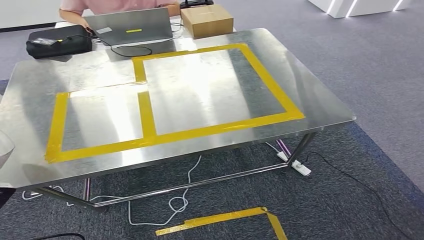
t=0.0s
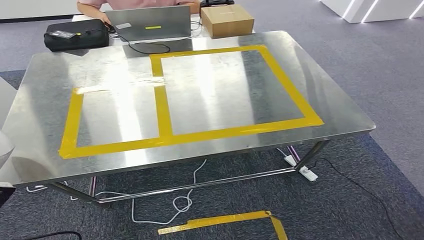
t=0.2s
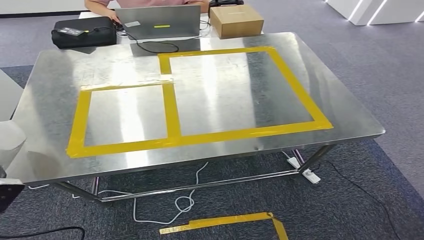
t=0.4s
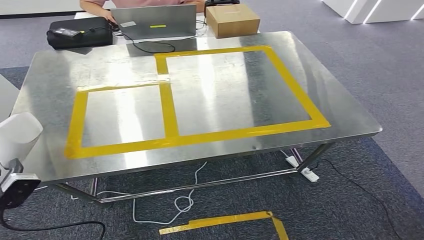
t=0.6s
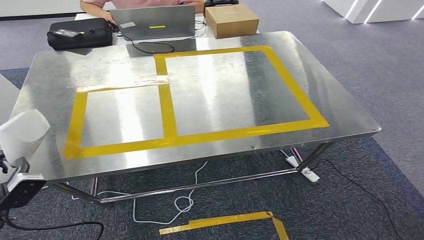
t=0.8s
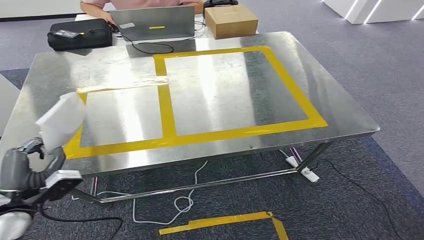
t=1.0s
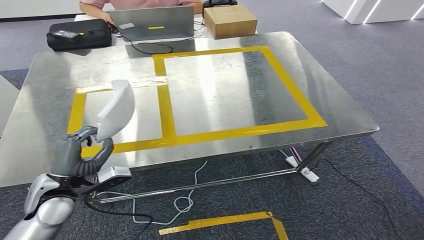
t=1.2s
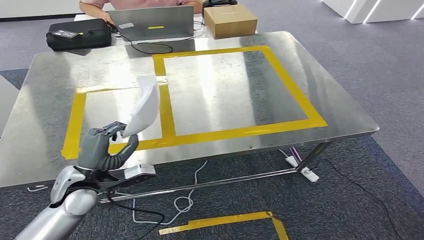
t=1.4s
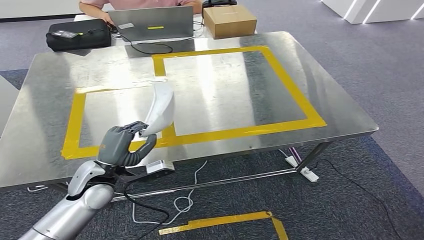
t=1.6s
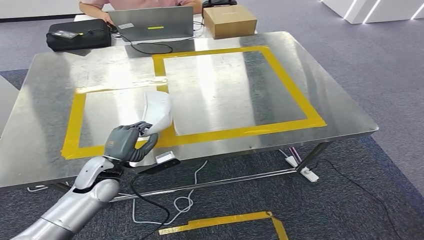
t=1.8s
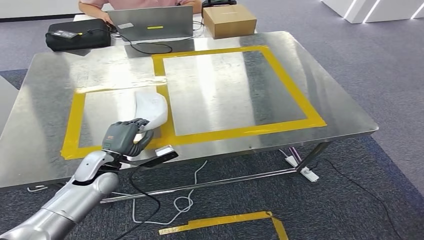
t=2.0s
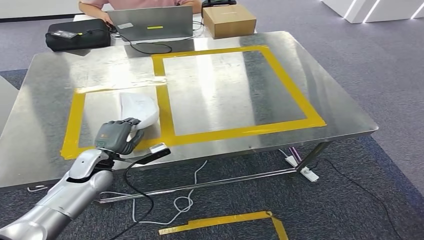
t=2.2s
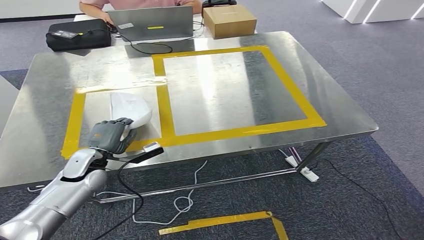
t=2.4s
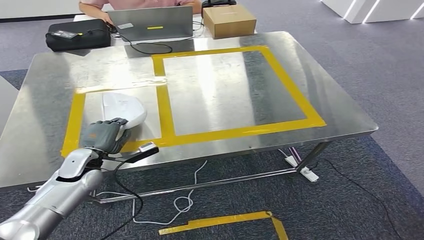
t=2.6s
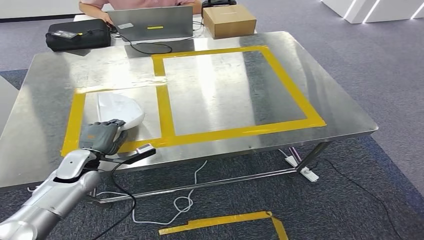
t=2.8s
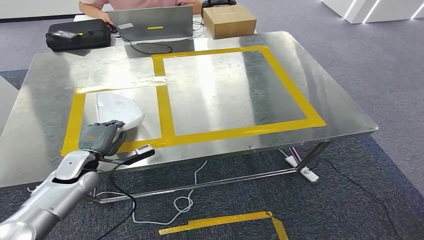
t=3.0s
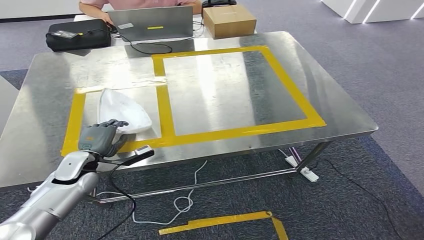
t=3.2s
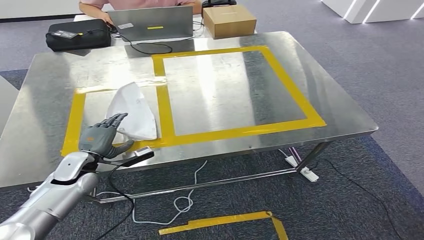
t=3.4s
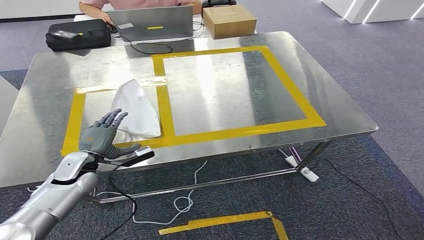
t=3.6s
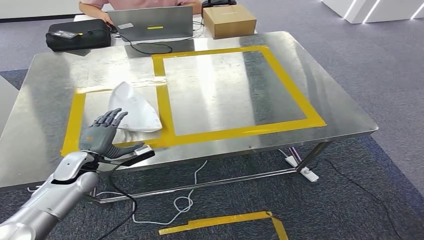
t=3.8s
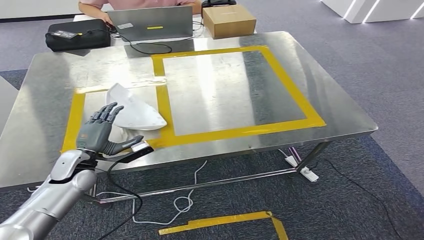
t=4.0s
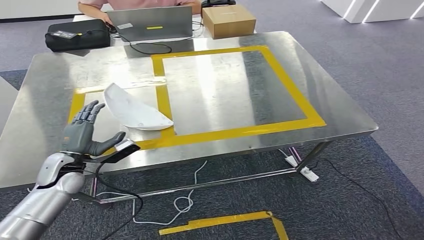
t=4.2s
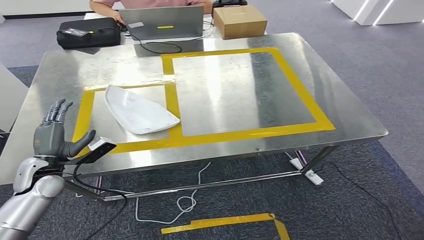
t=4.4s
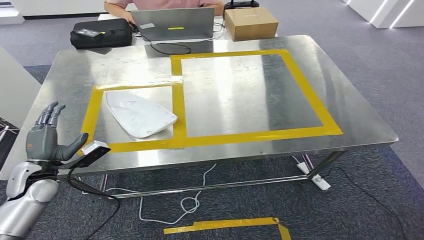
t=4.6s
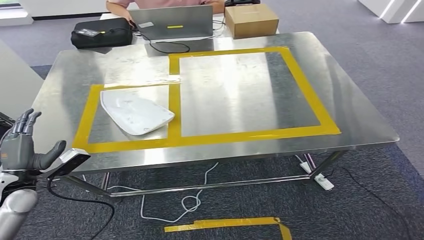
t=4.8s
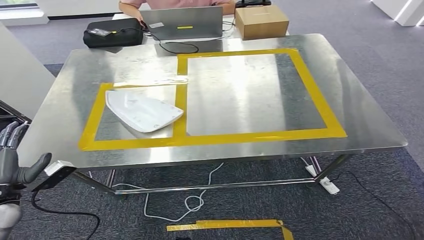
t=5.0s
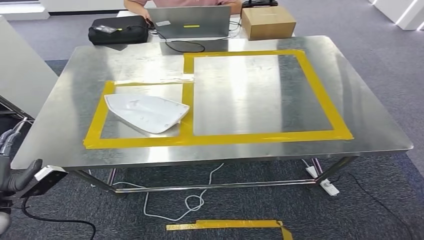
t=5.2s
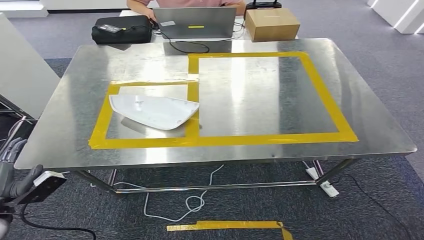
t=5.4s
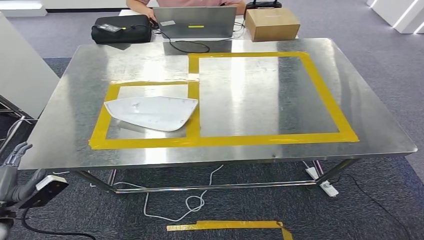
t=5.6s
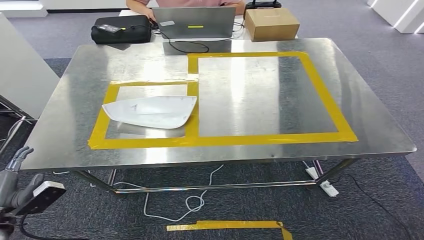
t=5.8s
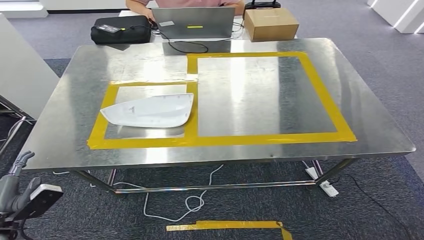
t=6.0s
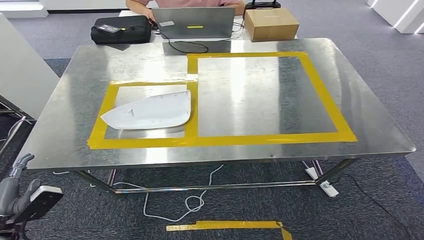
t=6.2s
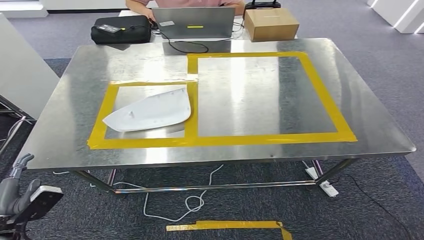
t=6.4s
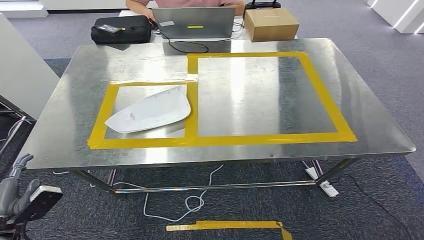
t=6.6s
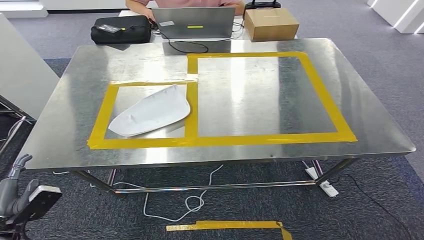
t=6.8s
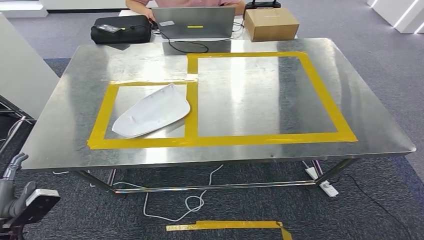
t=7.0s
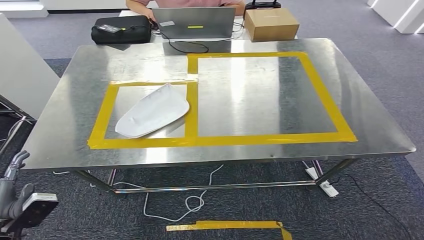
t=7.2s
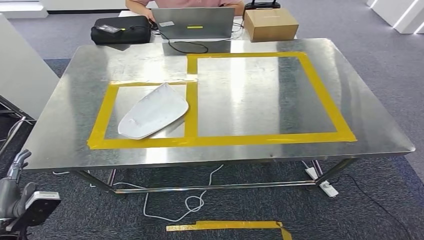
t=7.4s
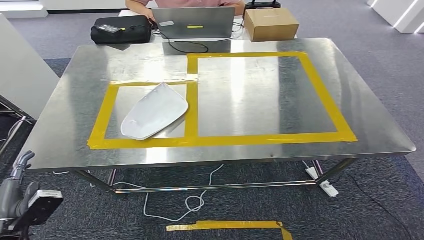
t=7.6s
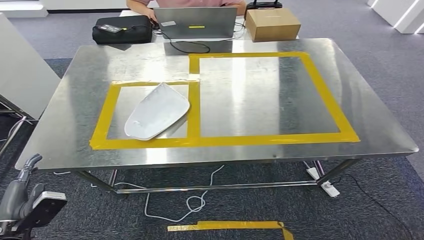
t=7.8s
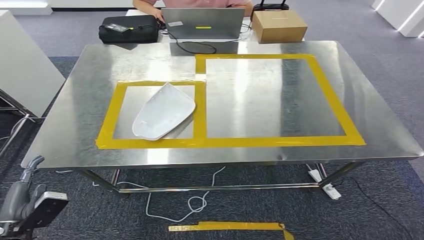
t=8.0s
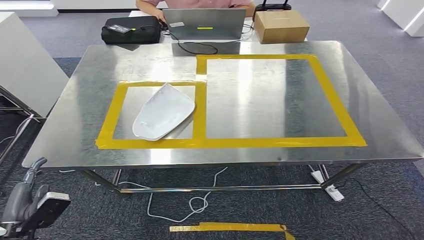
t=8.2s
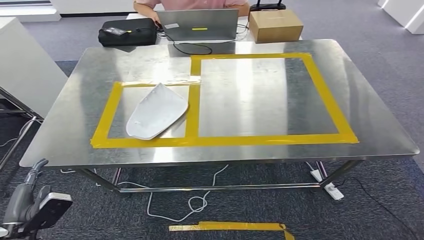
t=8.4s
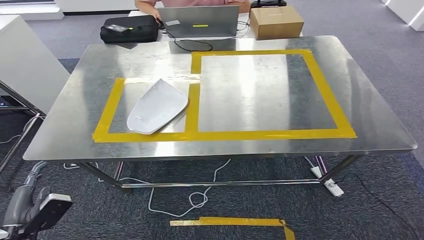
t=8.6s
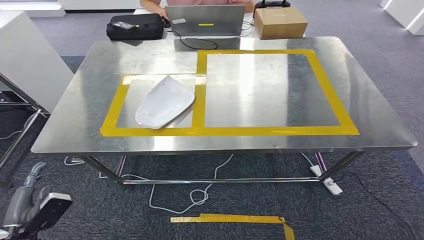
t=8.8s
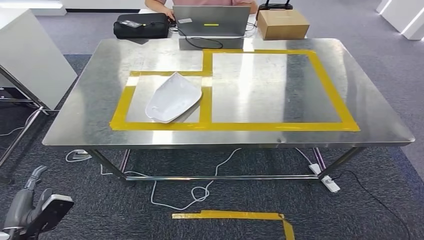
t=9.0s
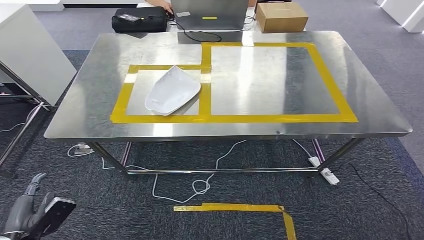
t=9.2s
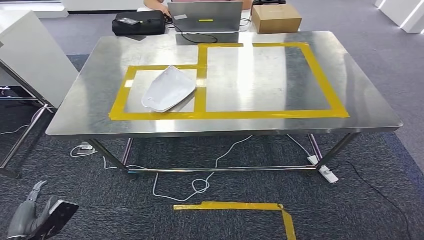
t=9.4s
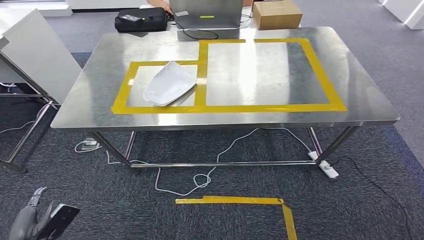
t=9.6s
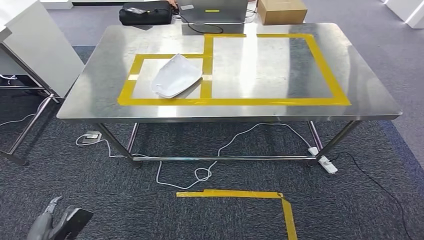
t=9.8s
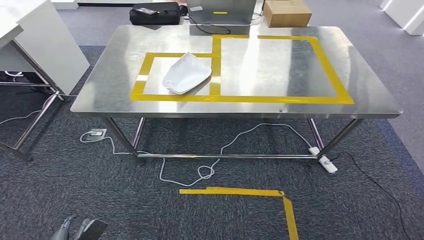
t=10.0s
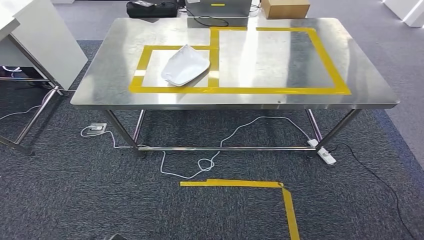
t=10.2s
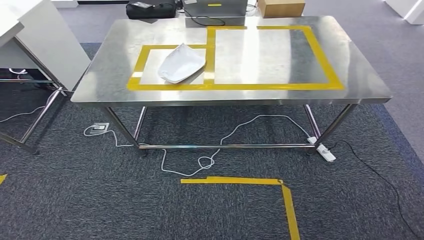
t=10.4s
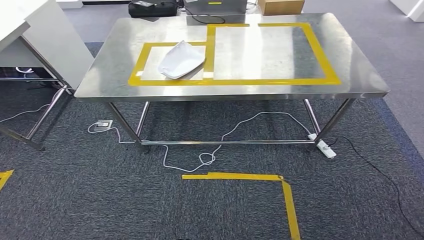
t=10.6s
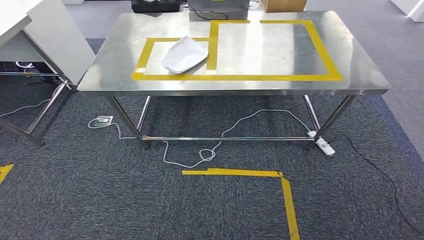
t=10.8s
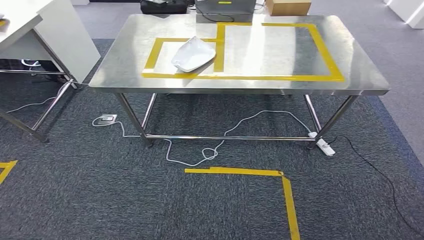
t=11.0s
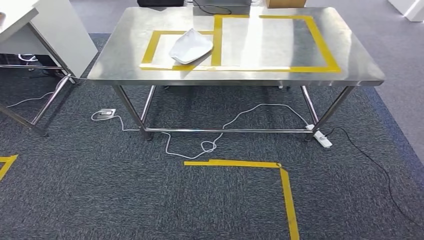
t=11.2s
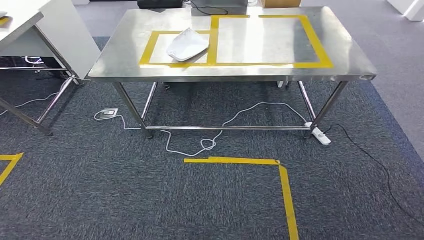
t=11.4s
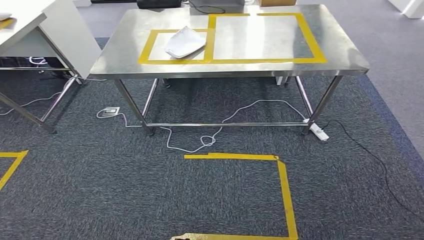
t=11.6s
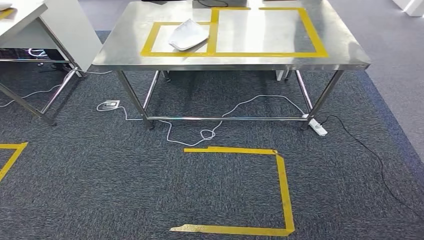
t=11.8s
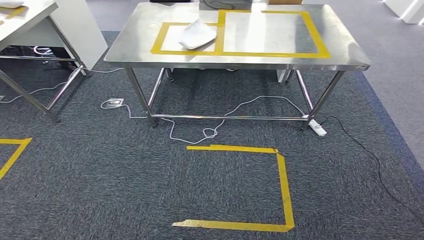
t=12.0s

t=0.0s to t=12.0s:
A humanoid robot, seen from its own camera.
Step, t=0.0s to t=9.4s: Insert the small component into the corresponding slot on the workbench.
t=1.6s to t=3.0s: The left hand heads to the left and forward, covering roughly 10 cm.
t=6.0s to t=7.6s: The hands make only small movements.

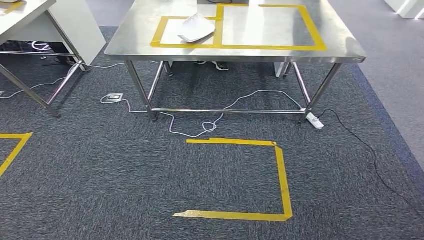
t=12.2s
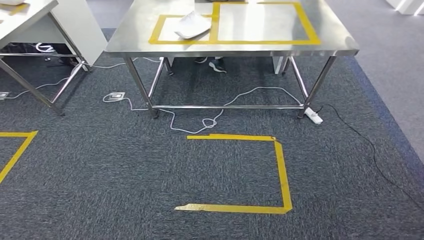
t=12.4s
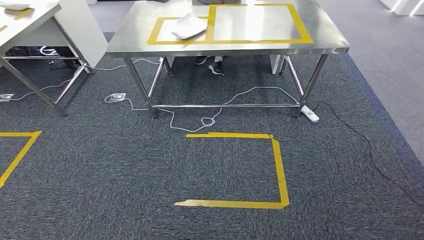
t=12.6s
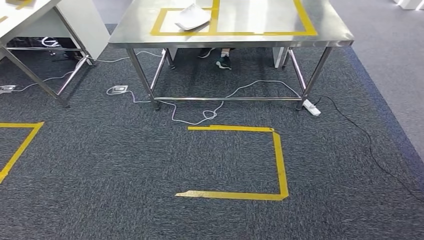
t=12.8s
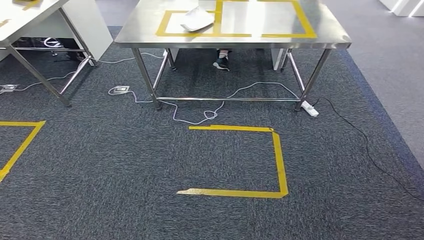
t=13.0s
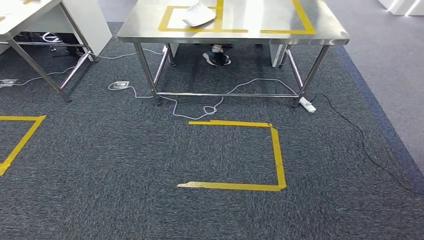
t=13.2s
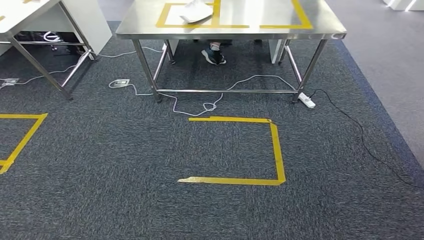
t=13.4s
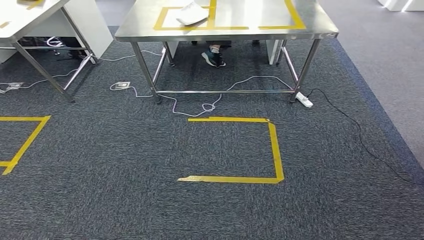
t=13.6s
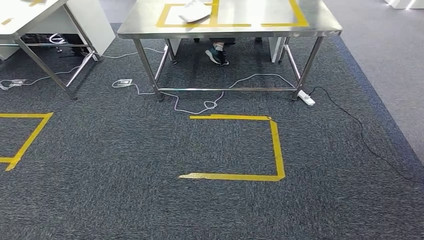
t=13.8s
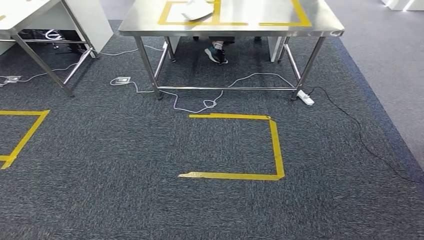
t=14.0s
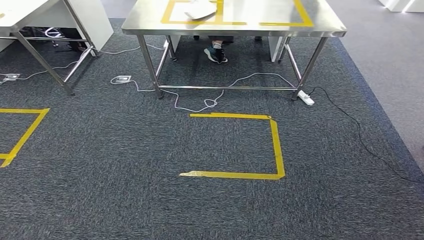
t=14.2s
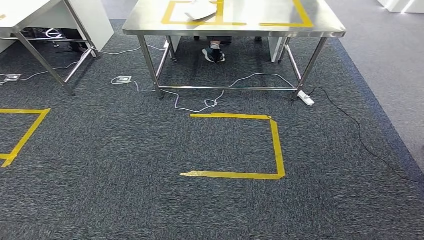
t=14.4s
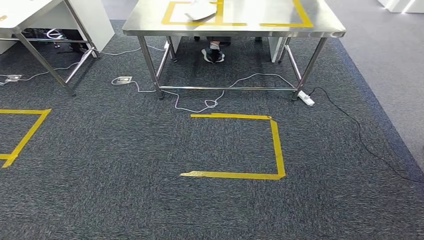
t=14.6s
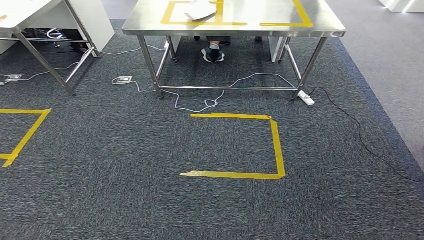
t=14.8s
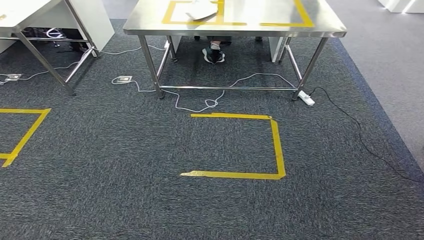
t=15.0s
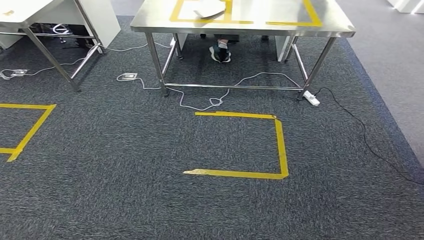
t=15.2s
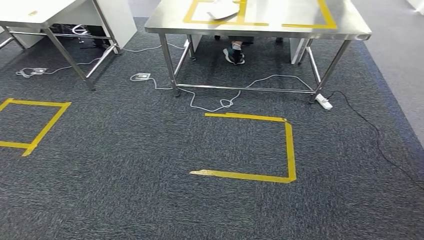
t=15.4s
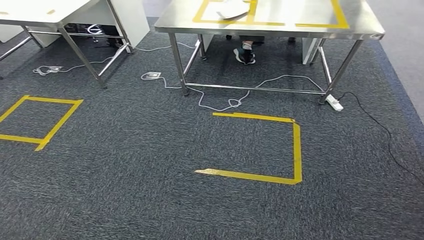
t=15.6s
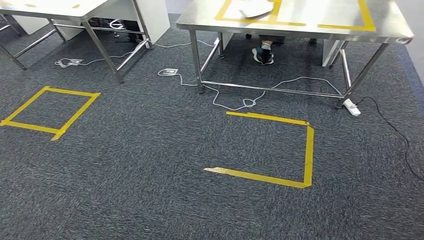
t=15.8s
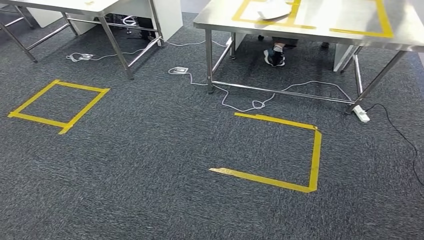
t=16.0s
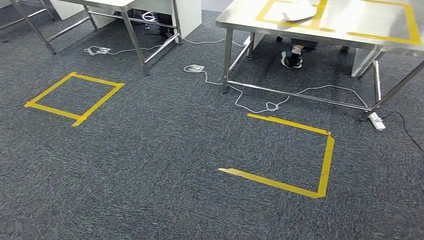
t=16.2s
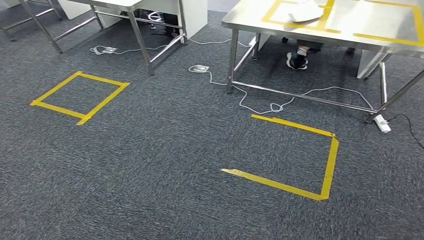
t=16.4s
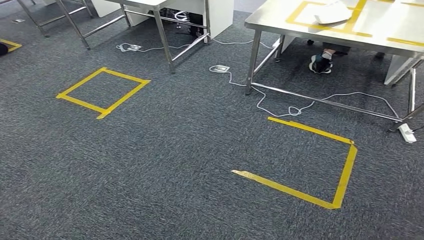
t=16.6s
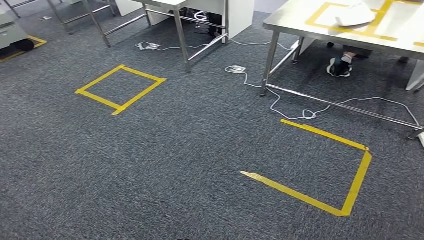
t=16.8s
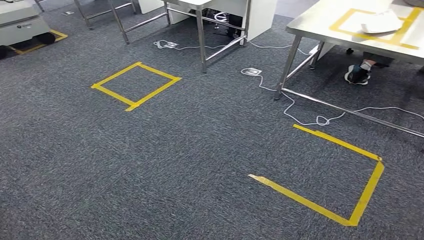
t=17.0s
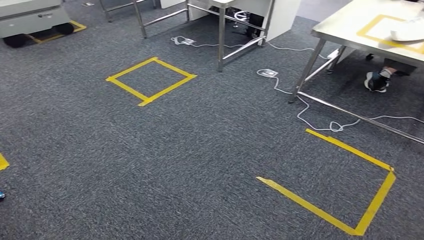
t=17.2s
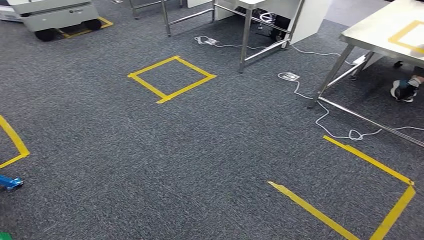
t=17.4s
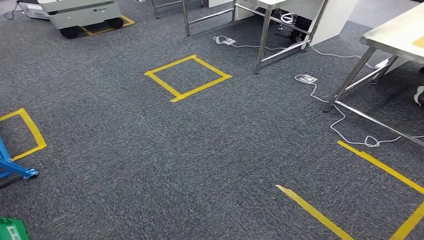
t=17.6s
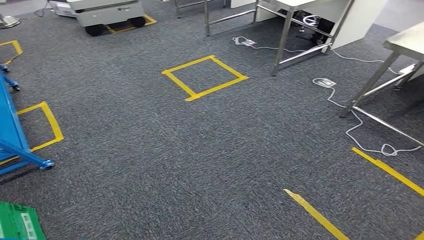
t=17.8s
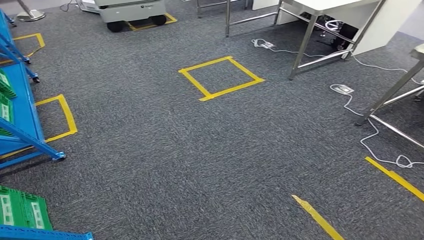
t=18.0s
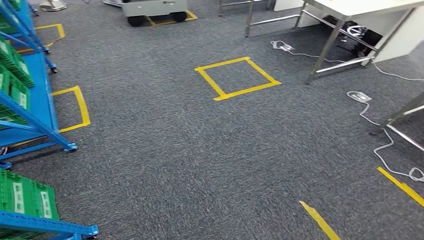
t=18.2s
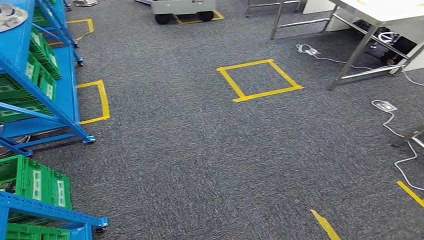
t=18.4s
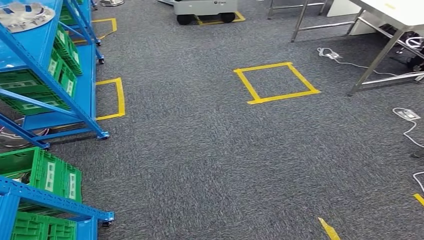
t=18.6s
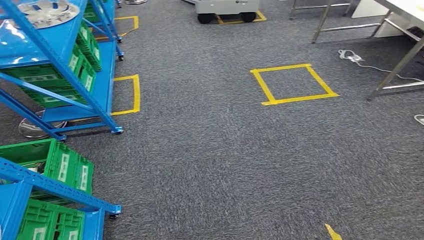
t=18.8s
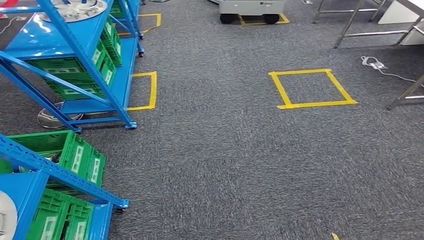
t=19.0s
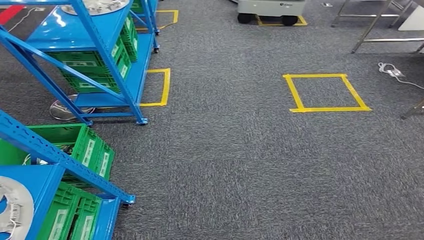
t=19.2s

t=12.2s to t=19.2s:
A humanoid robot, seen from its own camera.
t=13.6s to t=15.0s: The two hands keep their place.
